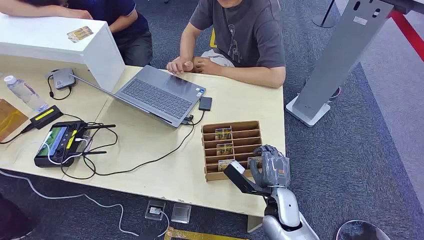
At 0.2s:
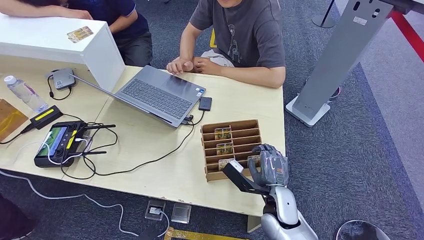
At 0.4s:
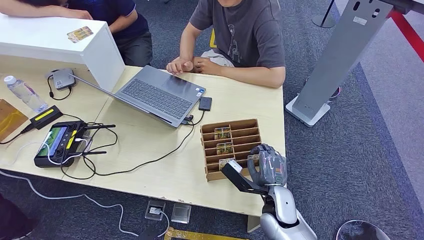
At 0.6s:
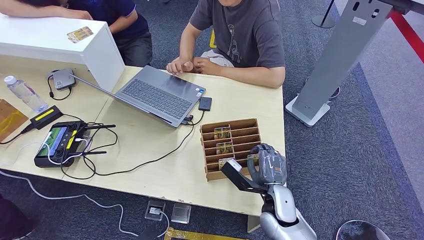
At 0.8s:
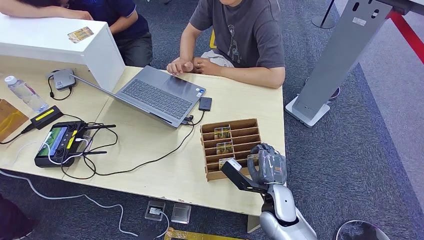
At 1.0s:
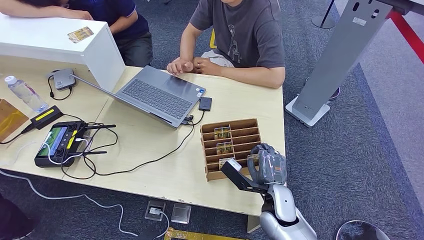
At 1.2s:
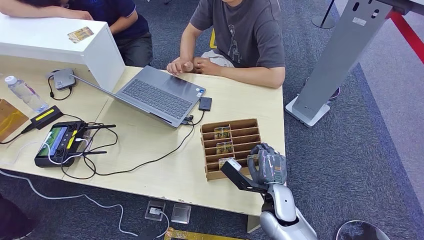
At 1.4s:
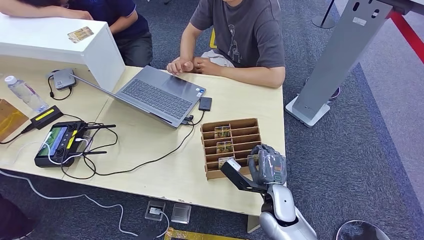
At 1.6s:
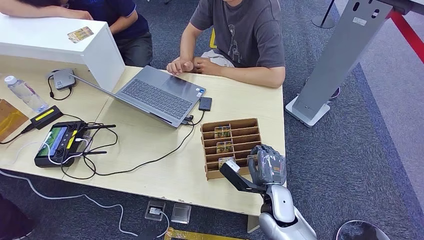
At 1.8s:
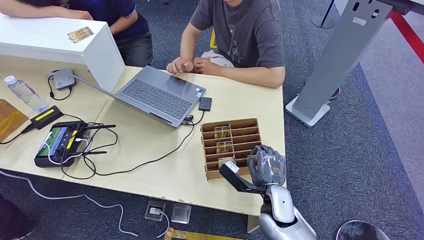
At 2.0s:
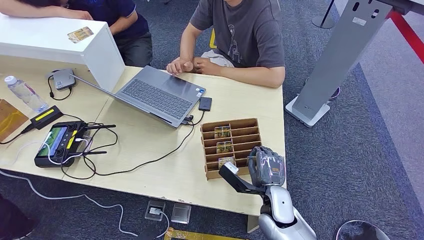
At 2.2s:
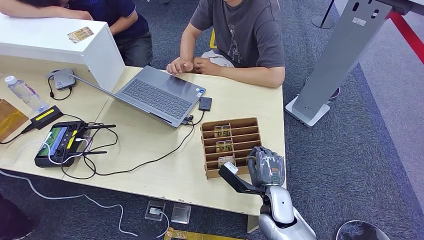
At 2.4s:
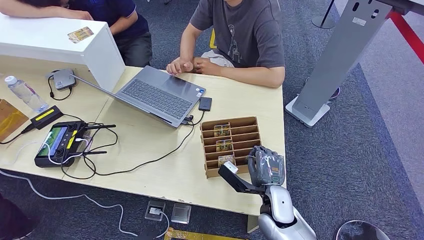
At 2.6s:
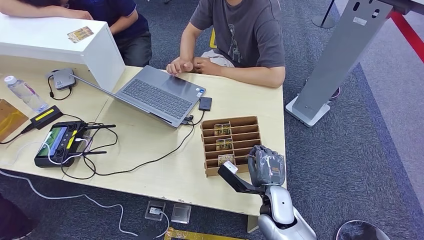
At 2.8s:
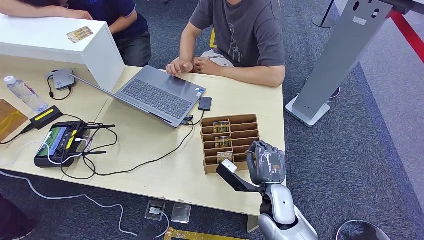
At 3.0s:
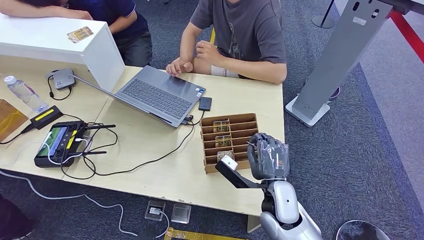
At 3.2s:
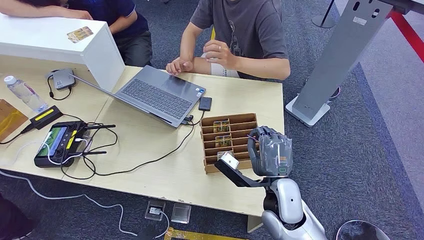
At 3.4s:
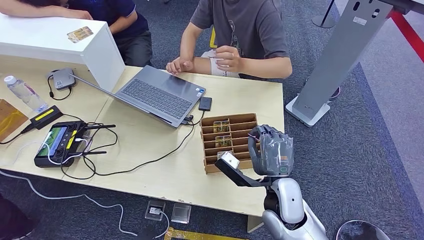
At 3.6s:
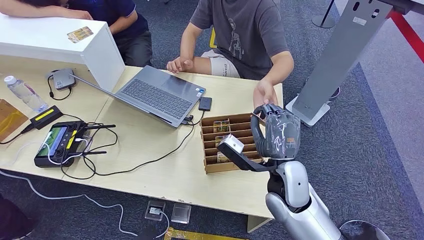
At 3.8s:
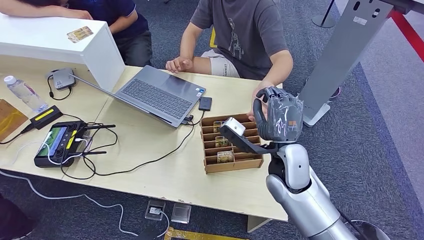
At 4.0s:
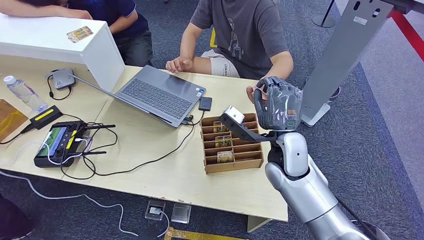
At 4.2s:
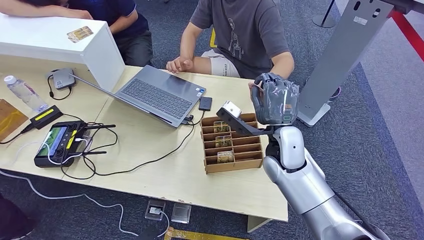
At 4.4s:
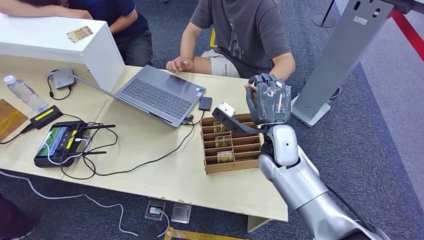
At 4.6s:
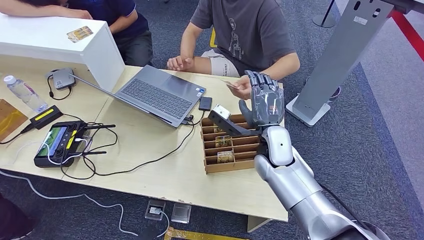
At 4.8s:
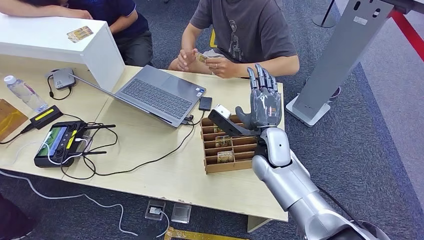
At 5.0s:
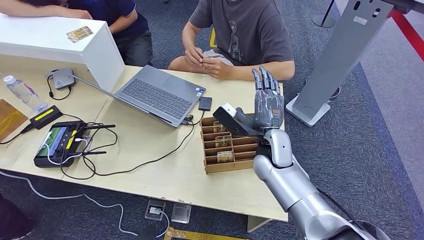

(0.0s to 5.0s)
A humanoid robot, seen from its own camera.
Step, 0.0s - 3.0s: Pick up the room card from the card holder.
Step, 3.6s - 5.0s: Hand the room card to the target.
1.6s - 3.4s: The right hand moves upward, some 10 cm.
3.4s - 5.0s: The right hand is displaced forward by about 10 cm.
